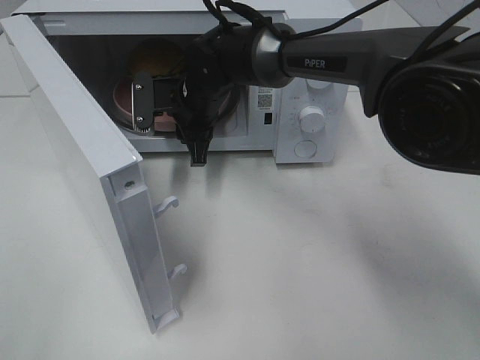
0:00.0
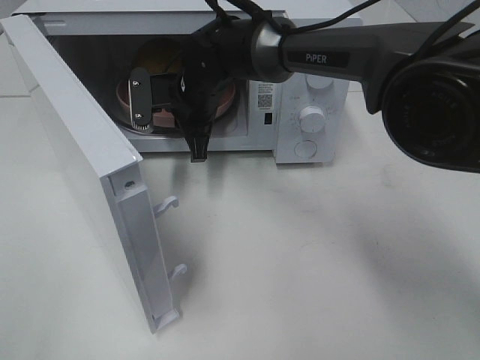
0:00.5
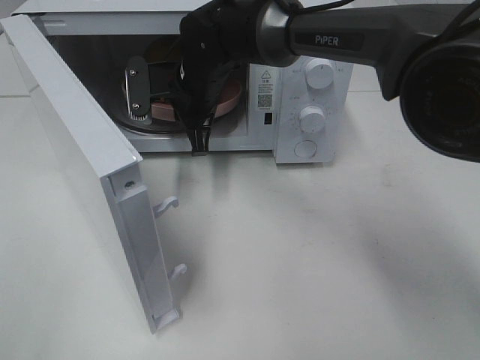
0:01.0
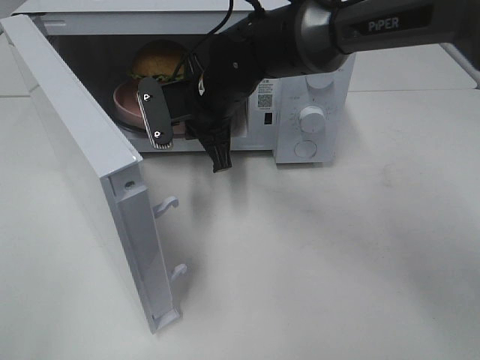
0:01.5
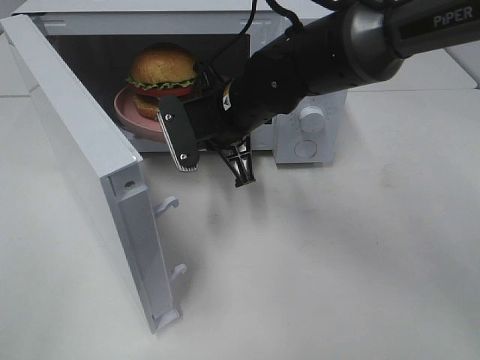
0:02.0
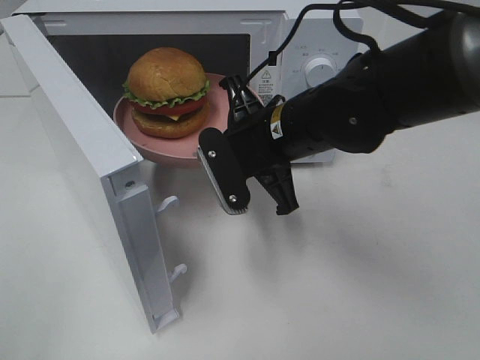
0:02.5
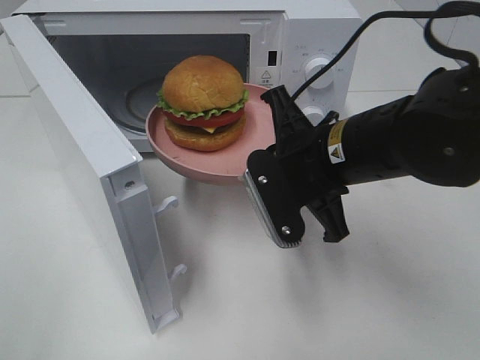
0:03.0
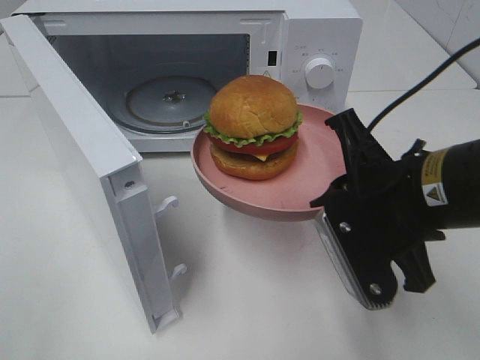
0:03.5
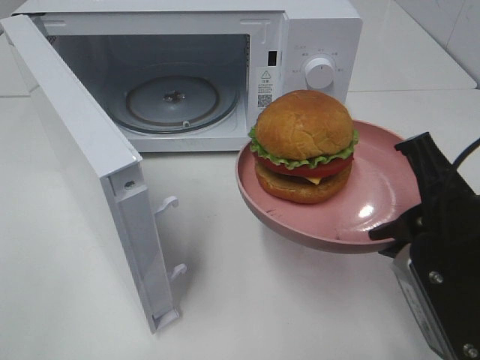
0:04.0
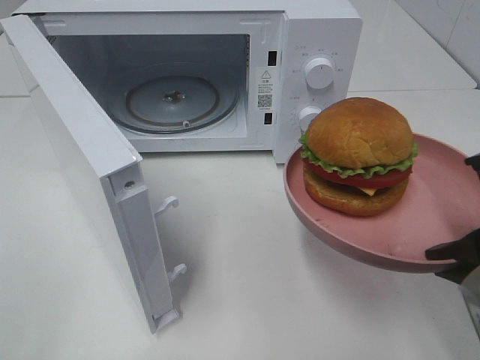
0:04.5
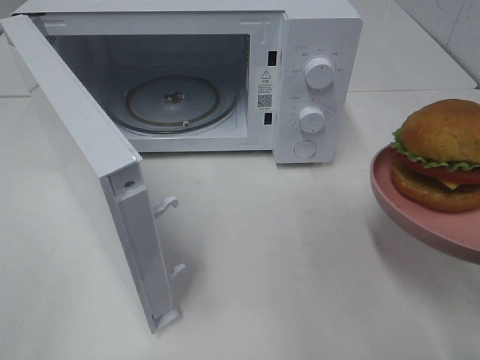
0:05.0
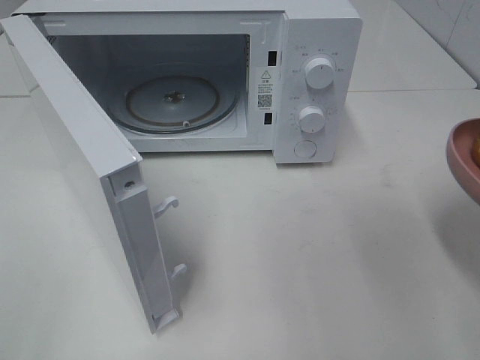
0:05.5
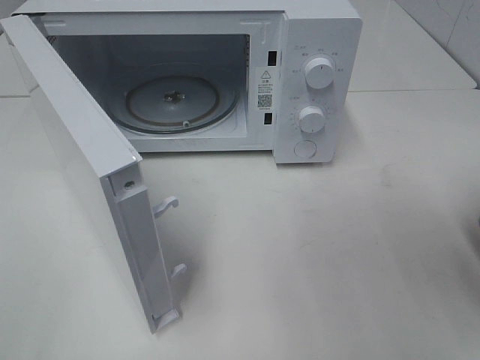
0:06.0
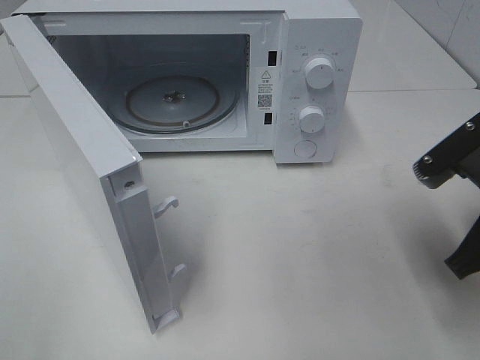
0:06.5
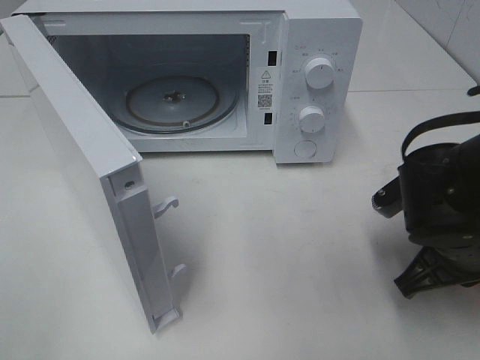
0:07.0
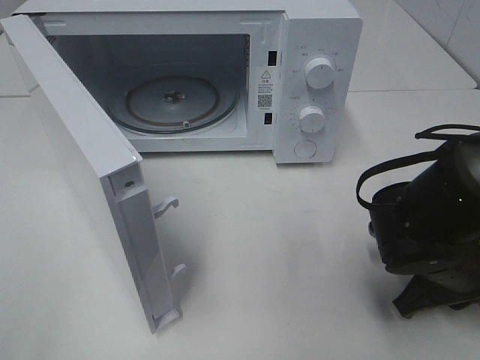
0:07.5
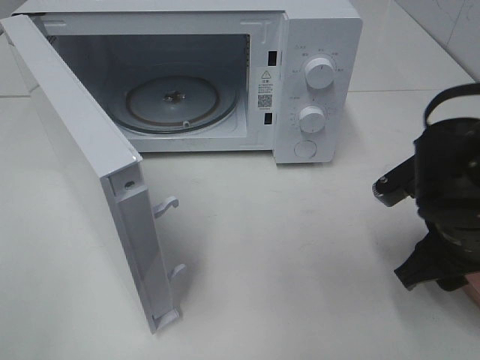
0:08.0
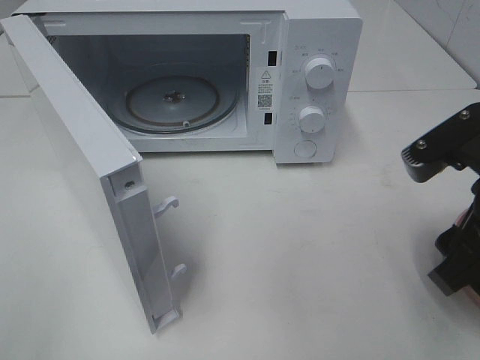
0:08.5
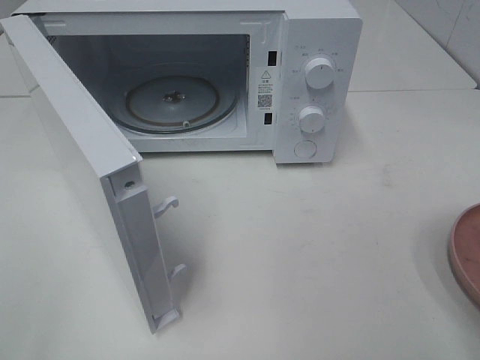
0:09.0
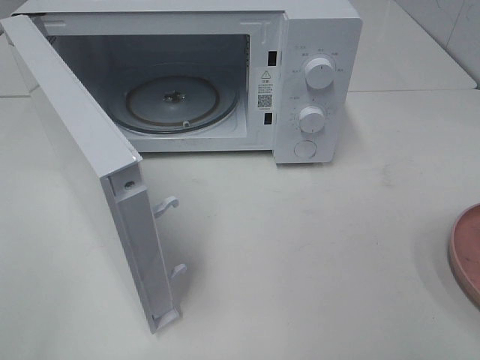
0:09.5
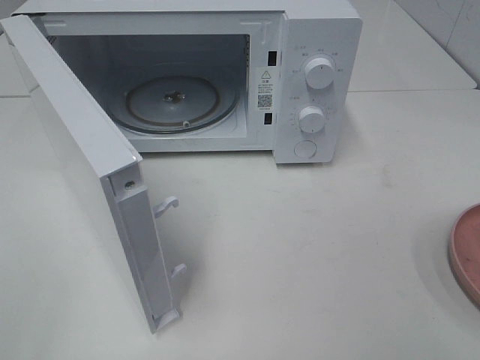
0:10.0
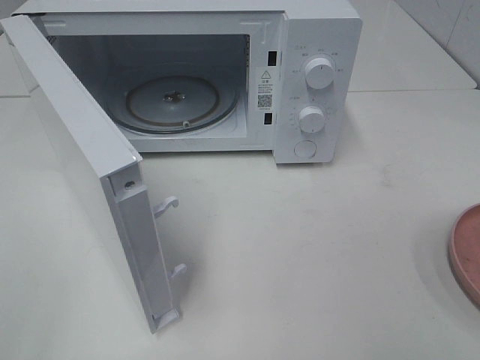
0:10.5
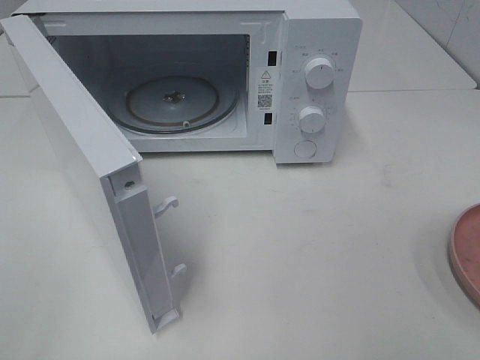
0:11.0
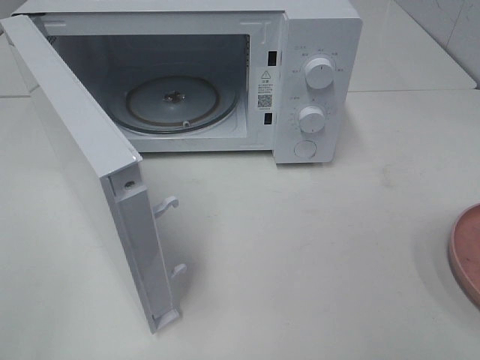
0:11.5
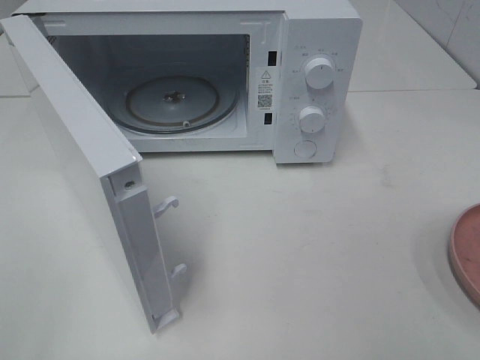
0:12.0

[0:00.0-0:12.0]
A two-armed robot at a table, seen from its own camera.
Task of the whole recording: Heat the burger.
Step, 0:00.5 to 0:08.5: Right hand: place the plate on the table.
0:00.0 to 0:02.0: The right gripper heads backward and to the right, covering about 10 cm.
0:02.0 to 0:04.0: The right gripper goes approximately 25 cm backward and to the right.
0:04.0 to 0:06.0: The right gripper travels to the right by some 5 cm.
0:06.0 to 0:08.0: The right gripper heads forward, downward and to the left, covering roughly 10 cm, and opens its fingers.
0:08.0 to 0:10.0: The right gripper is displaced backward, upward and to the right by about 25 cm.

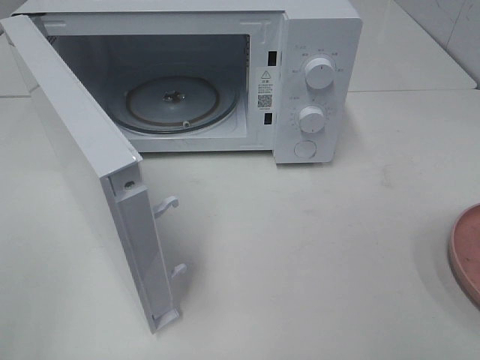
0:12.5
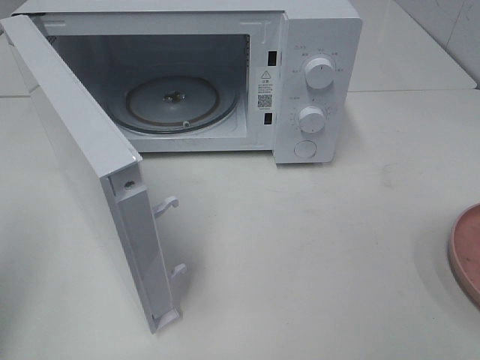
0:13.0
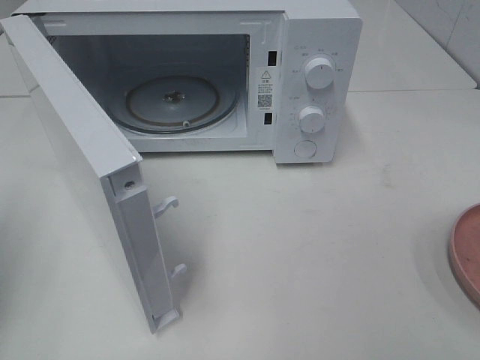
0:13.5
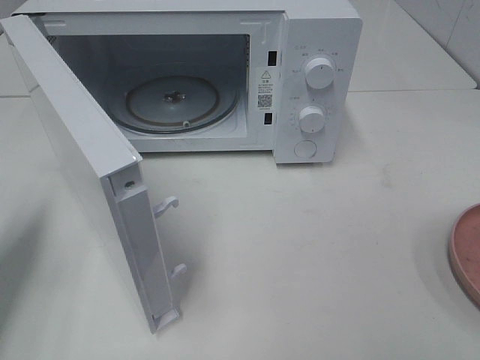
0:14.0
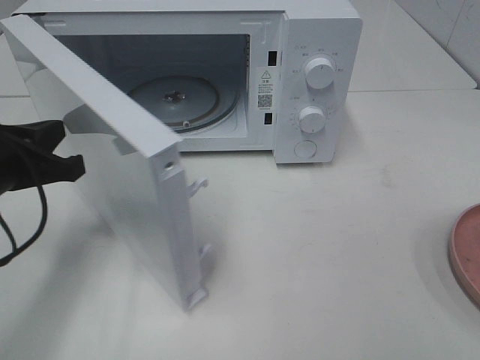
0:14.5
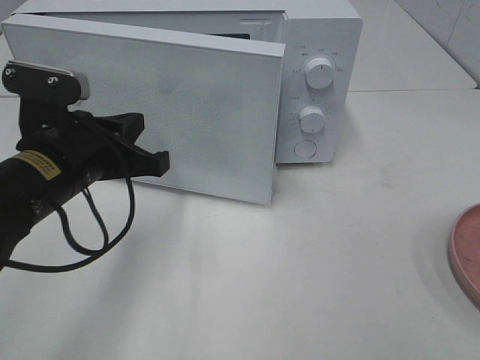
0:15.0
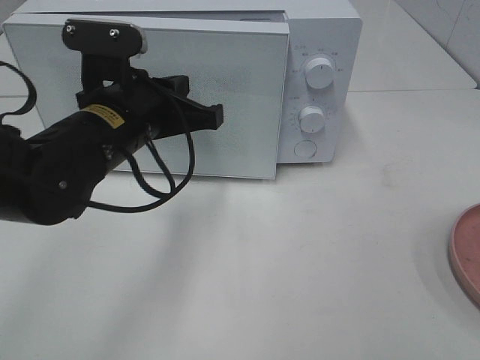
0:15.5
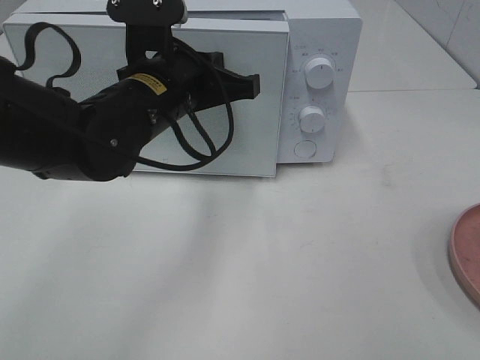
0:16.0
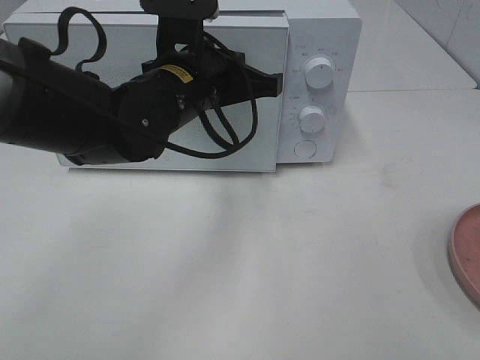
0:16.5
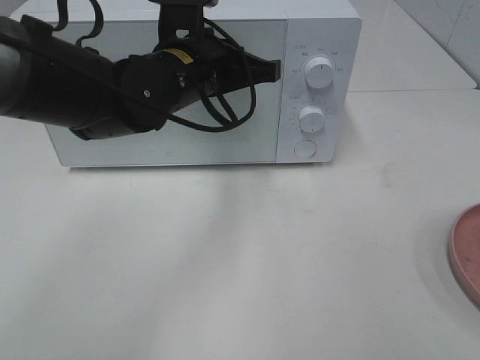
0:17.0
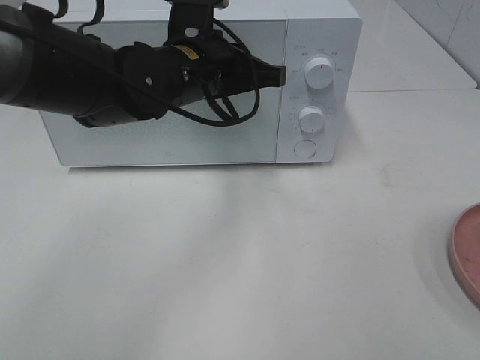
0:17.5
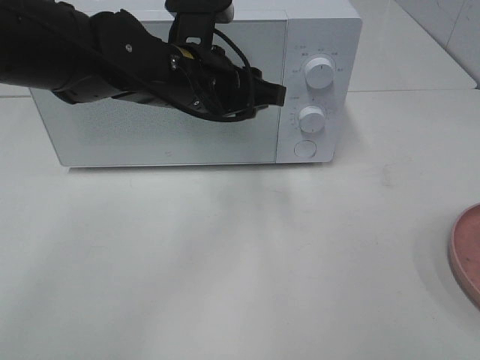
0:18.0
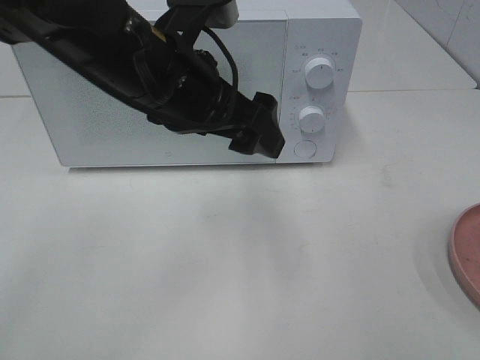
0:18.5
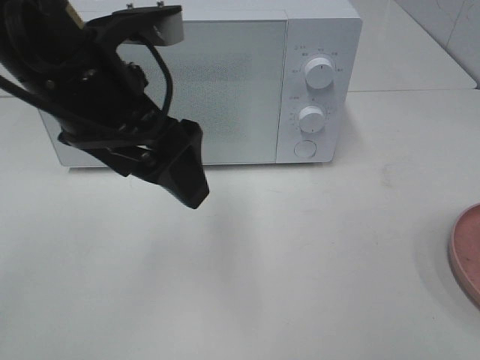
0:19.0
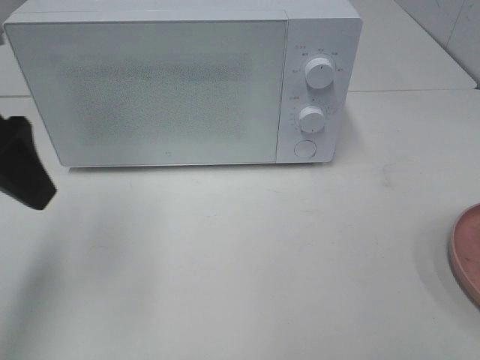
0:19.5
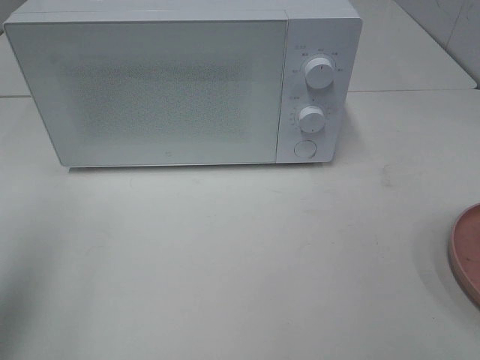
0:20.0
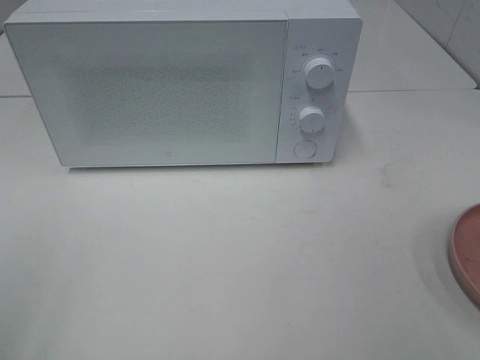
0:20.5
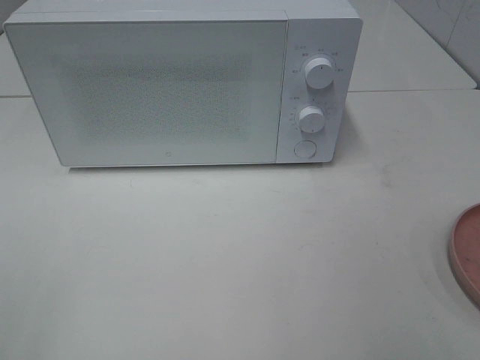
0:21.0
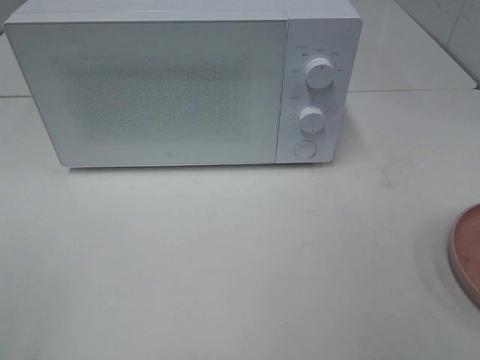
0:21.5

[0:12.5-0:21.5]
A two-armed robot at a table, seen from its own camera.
Task of the whole recording: Heat the burger.
Step, 0:12.5 to 0:17.5: Left hand: close the microwave door.
0:12.5 to 0:14.5: The left gripper goes approximately 25 cm forward, downward and to the right, and closes up.
0:14.5 to 0:17.0: The left gripper is displaced to the right and forward by some 20 cm.
0:17.0 to 0:19.5: The left gripper moves to the left, backward and upward, approximately 25 cm, and opens up.
0:19.5 to 0:21.5: The left gripper travels backward by roughly 25 cm.

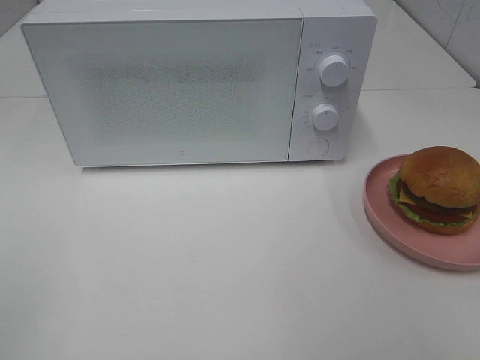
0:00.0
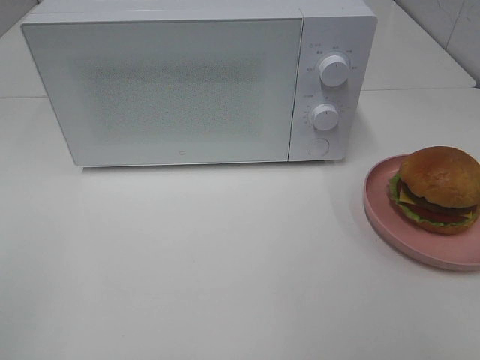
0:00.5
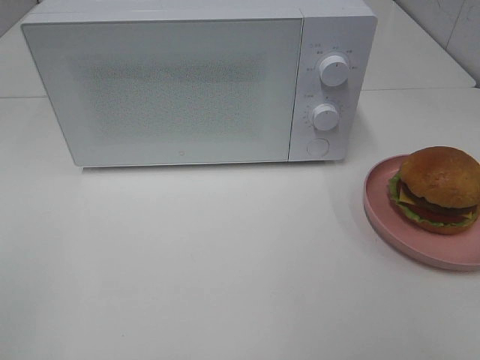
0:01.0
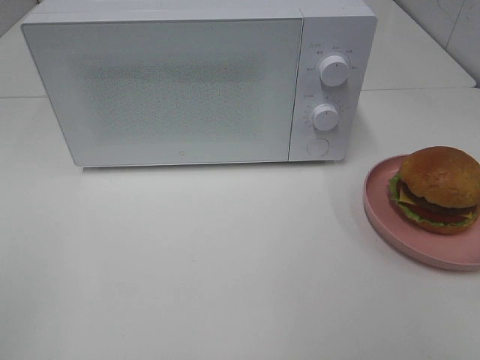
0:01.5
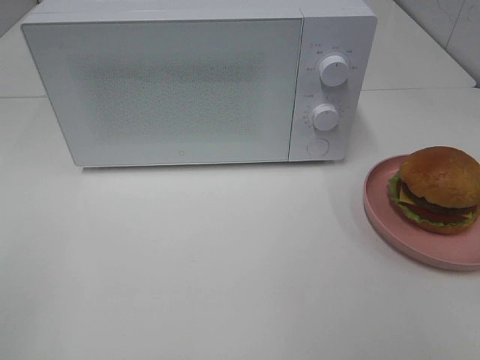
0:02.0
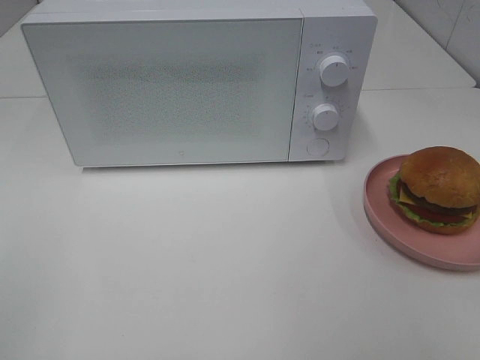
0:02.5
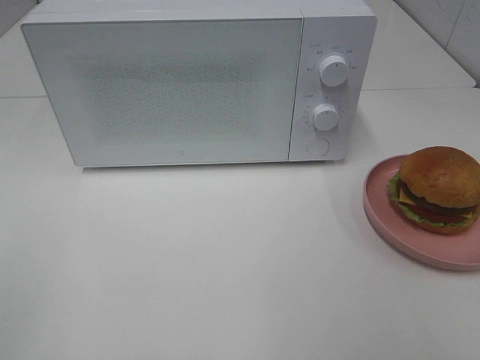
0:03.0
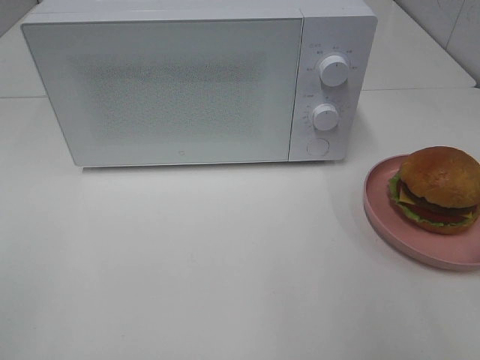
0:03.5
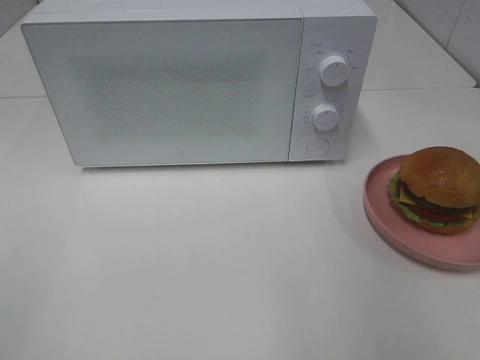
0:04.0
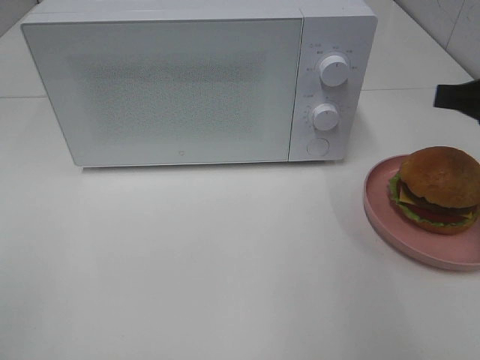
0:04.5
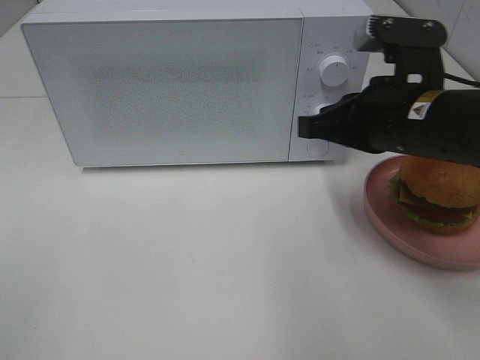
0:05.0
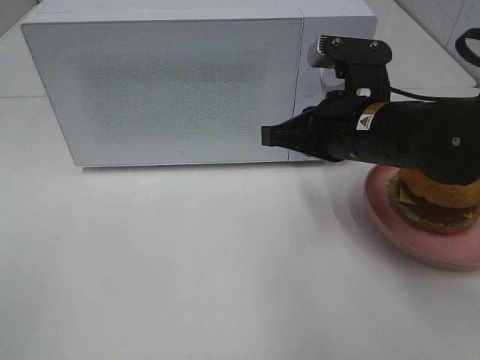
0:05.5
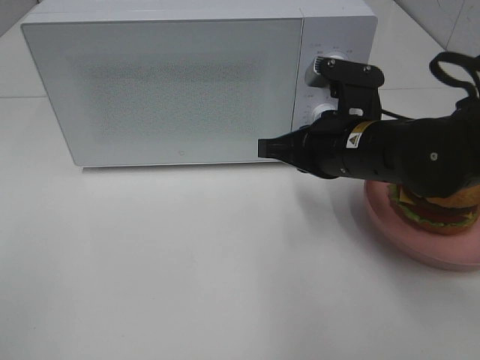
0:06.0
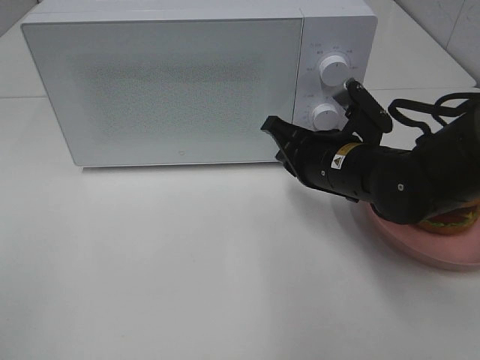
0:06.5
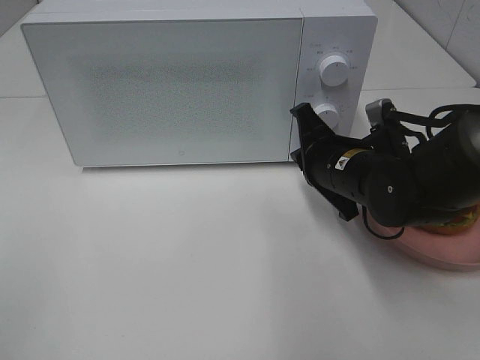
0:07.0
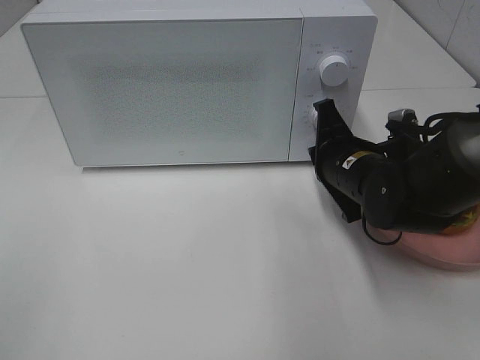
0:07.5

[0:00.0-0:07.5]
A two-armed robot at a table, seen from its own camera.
Task of the whole recording: Heat the burger.
0:00.0 to 0:02.0: The two grippers keep their place.
0:04.0 to 0:05.5: The right gripper travels to the left, downward and forward by some 20 cm.
0:05.5 to 0:07.5: The right gripper is displaced downward by some 10 cm.
